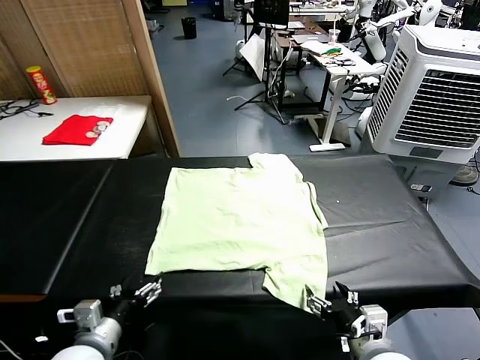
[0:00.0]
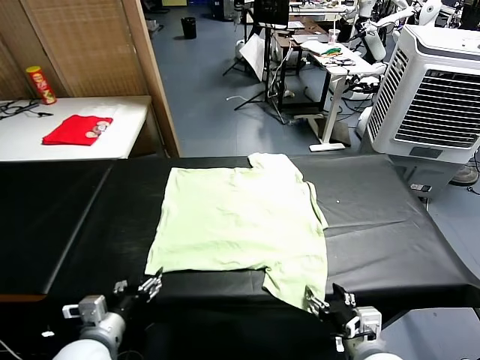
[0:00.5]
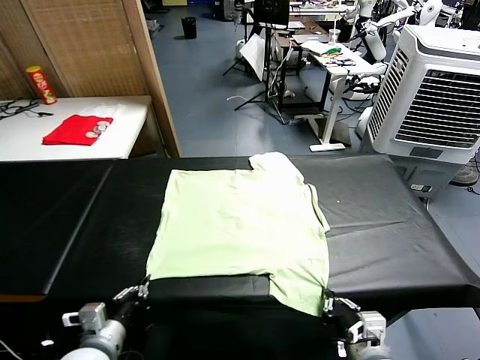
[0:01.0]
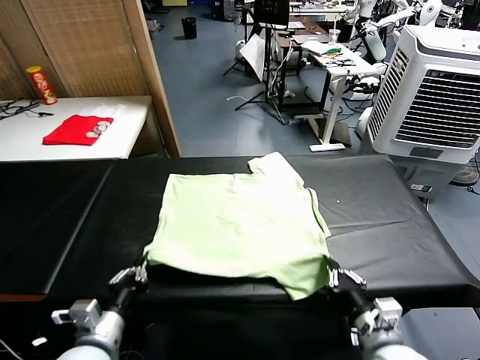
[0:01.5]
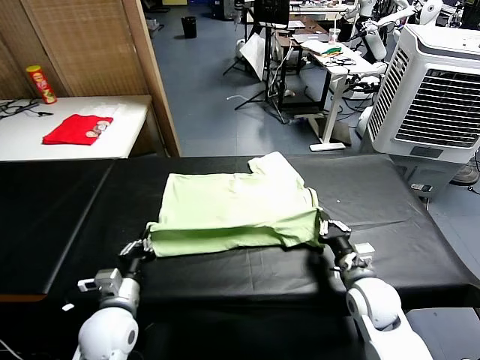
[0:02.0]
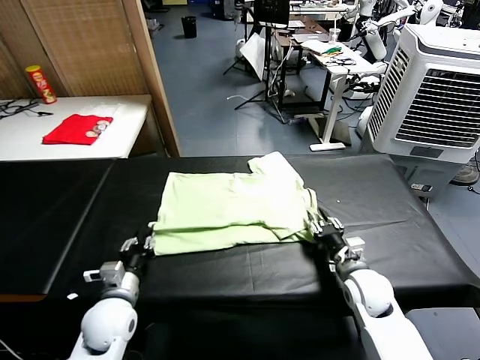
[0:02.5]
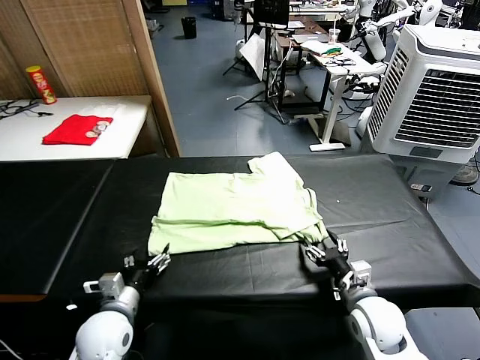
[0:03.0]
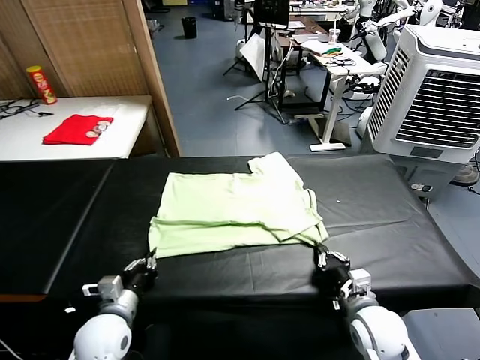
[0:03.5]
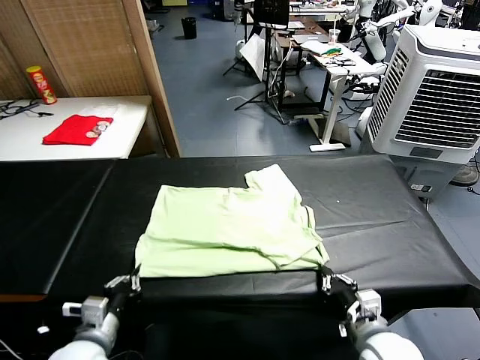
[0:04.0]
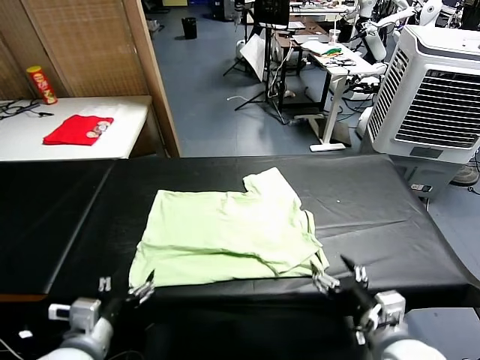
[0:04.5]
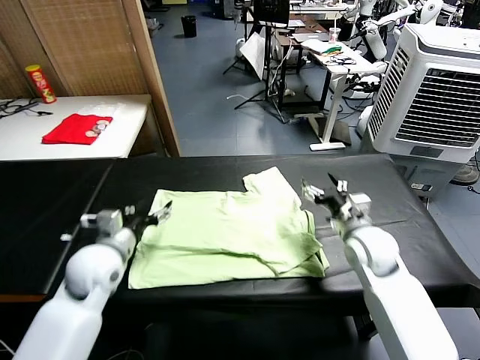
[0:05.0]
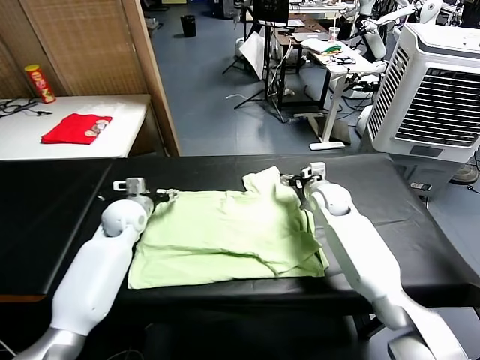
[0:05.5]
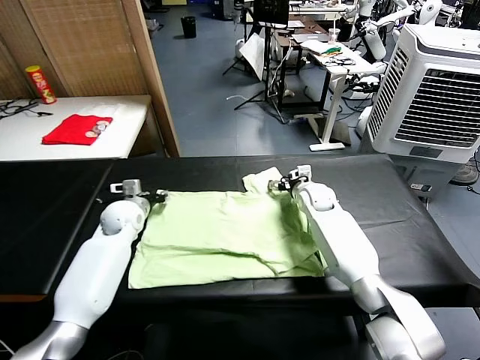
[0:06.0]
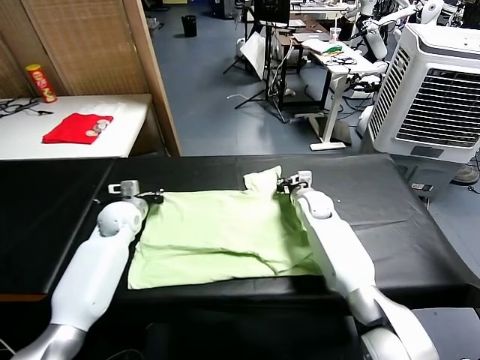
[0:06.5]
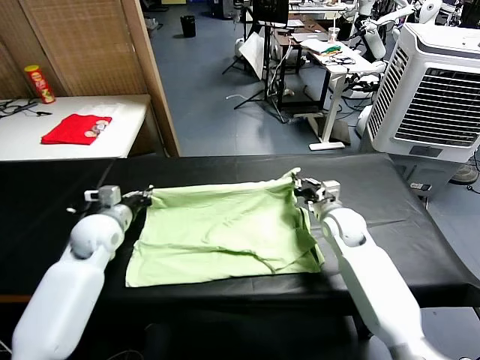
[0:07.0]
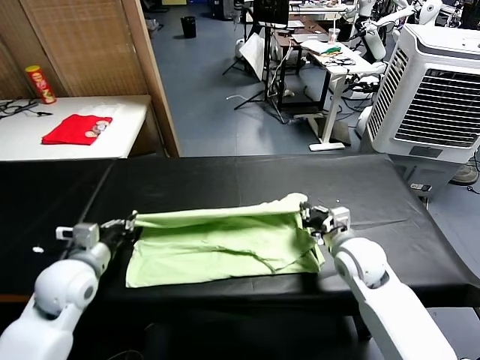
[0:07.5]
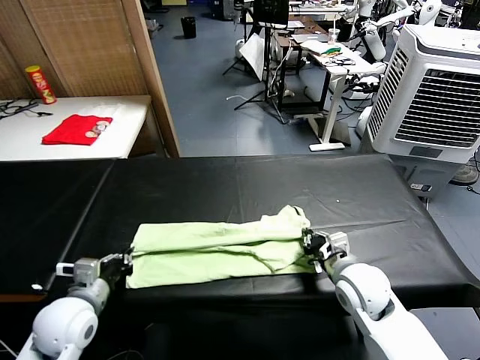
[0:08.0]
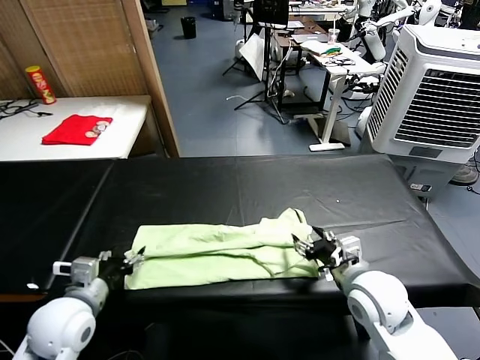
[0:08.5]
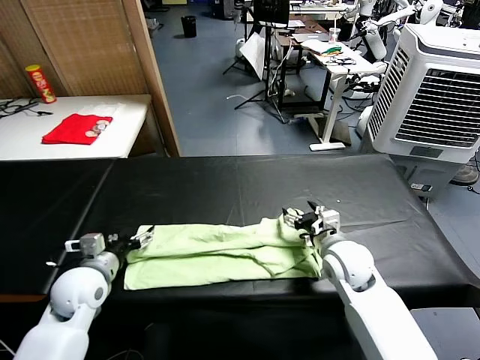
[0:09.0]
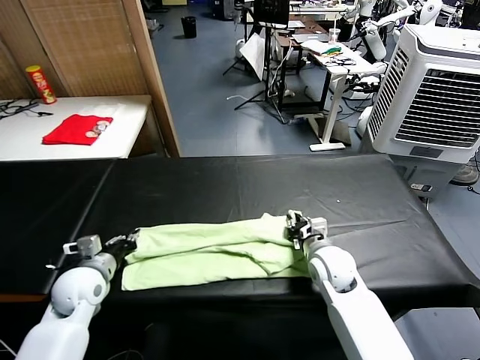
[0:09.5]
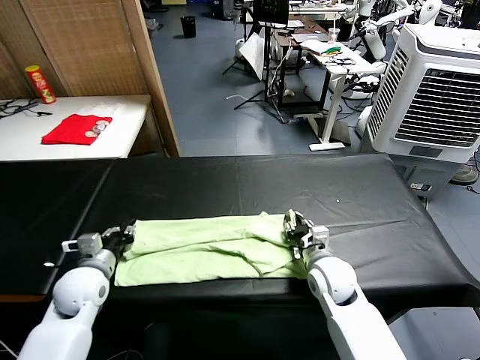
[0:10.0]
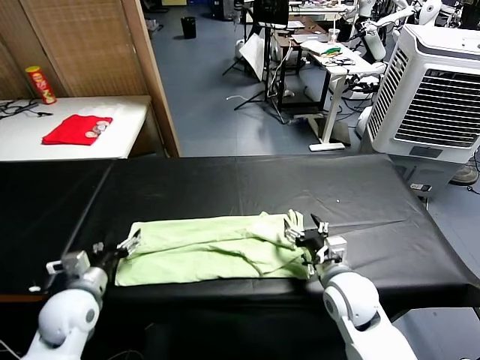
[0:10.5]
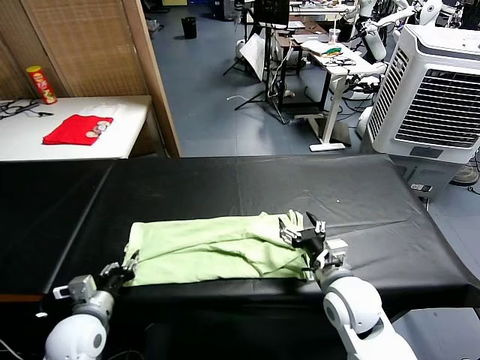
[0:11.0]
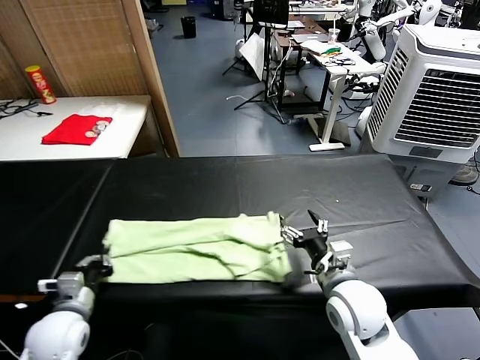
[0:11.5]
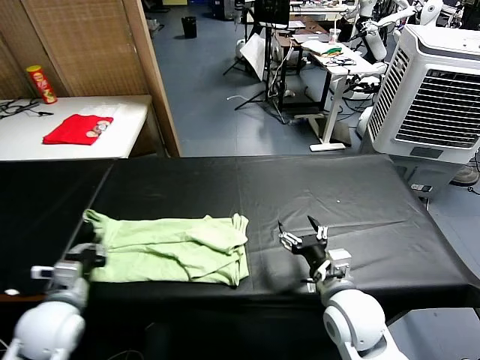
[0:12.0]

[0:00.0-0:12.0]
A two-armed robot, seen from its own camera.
Task of the whole recording: fold and organize the clothes.
Step, 0:00.0 to 0:00.5: use both grippers simultaneously to clamp the lower edge of the clothing fabric.
Step, 0:01.0 to 0:02.5: use both grippers to drag the lower edge of the fabric forward and fold it over the upper edge.
Step, 0:03.0 to 0:04.0: Drag the clothes downward with both gripper.
Step, 0:04.5 to 0:06.0: use both grippers simultaneously to clamp the upper edge of the clothing fabric.
Step, 0:06.5 to 0:08.0: use both grippers to drag the upper edge of the fabric backward and fold it over the lower edge.
Step, 0:09.0 to 0:11.0: use the left gripper to clamp the left edge of the fabric.
0:02.0 to 0:04.0: The left gripper heads backward, covering some 5 cm, and opens, then closes again. Meanwhile the right gripper is displaced backward by roughly 15 cm, and opens and closes again.
0:04.0 to 0:06.0: The grippers both shift forward by roughly 35 cm. The left gripper opens, while the right gripper opens up.
0:06.0 to 0:08.0: Both grippers travel together backward, roughly 25 cm. The right gripper closes up. The left gripper closes up.
0:08.0 to 0:10.0: The left gripper goes some 5 cm forward, and opens and closes again; the right gripper changes place by about 5 cm, and opens up.
0:10.0 to 0:12.0: The right gripper is displaced backward and upward by about 10 cm, and opens. The left gripper travels backward by roughly 10 cm, and opens, then closes again.

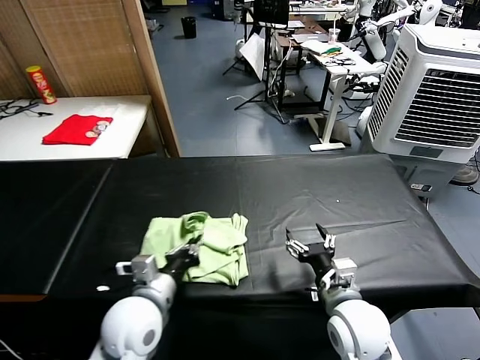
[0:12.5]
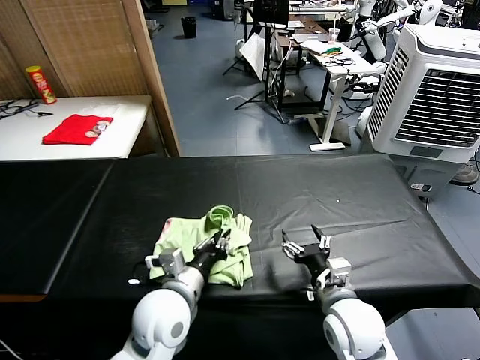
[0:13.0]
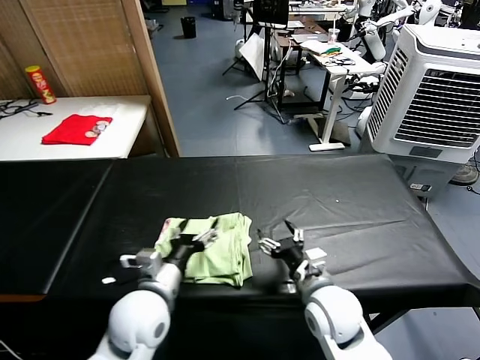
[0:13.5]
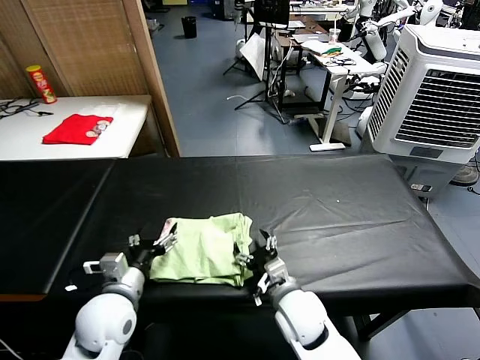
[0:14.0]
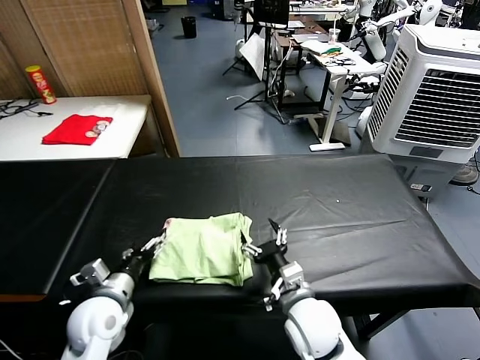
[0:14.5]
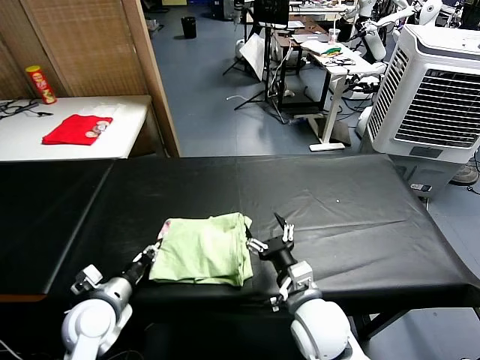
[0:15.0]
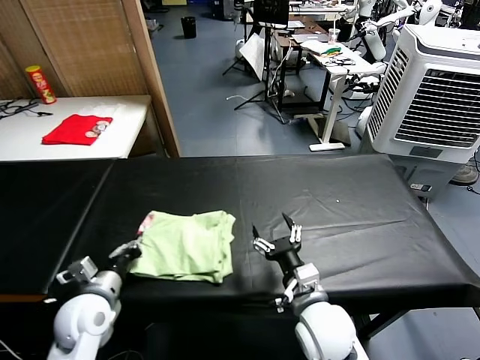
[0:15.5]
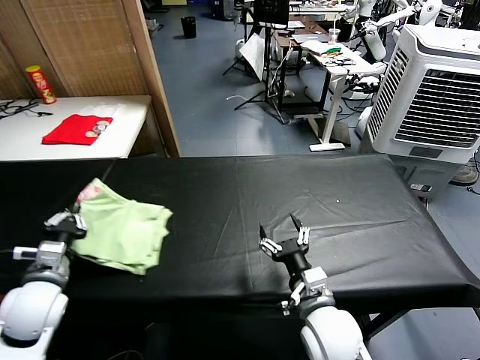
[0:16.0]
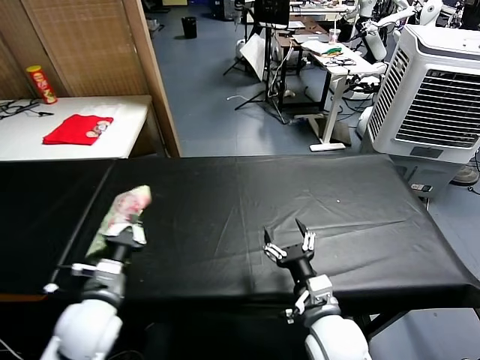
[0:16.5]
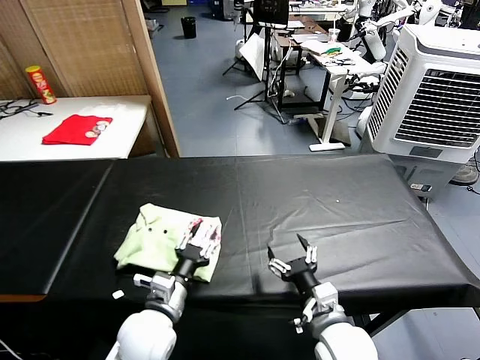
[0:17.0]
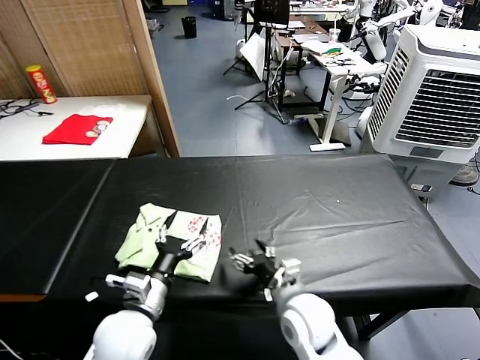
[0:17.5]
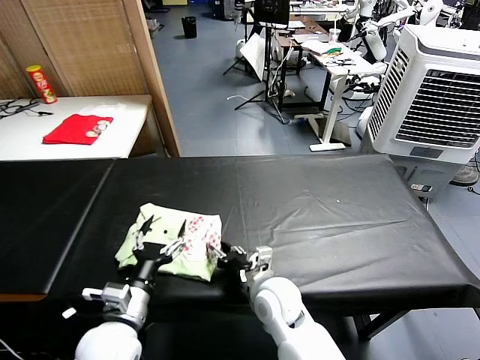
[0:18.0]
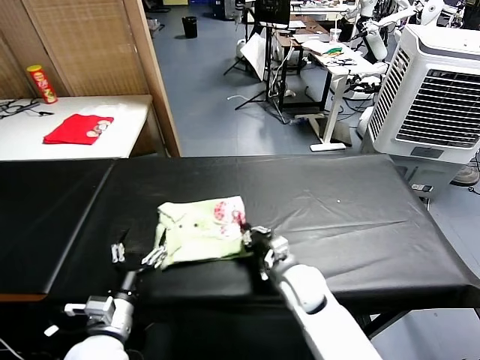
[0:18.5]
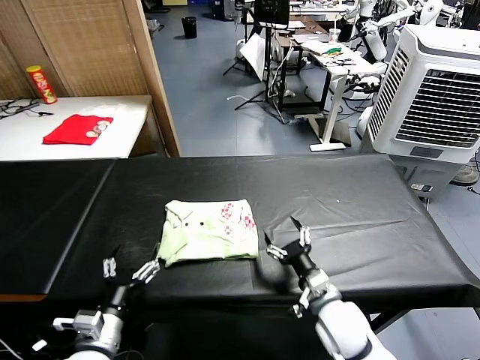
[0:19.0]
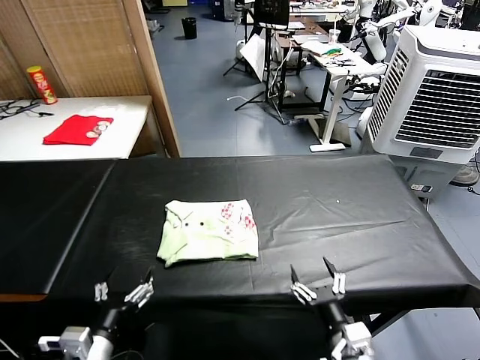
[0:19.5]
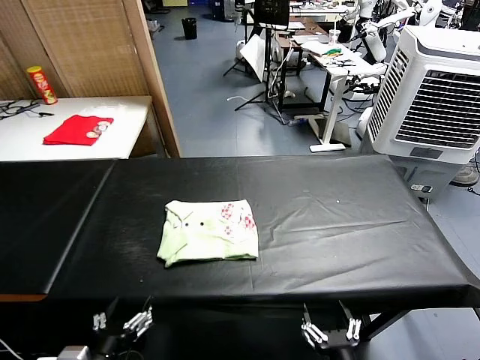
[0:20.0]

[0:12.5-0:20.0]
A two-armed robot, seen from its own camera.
Task of the whole recording: fold and organize the clothes.
Step, 0:13.5 to 0:17.0: Flip the folded clothes over with left gripper.
Step, 0:17.5 to 0:18.5: Drag the clothes to the center of the table.
0:12.5 to 0:14.5: Both grippers move to the left, roughly 10 cm. The left gripper opens its fingers.
0:14.5 to 0:16.5: The left gripper shifts roughly 5 cm upward, reaches roughly 10 cm to the left, then returns, and closes its fingers.
0:16.5 to 0:18.0: The right gripper shifts about 10 cm forward and to the left, and closes its fingers, while the left gripper heads to the right, covering some 5 cm, and opens its fingers.
0:18.0 to 0:20.0: The left gripper travels backward by roughly 10 cm, while the right gripper heads backward and to the right, covering roughly 25 cm, and opens its fingers.
